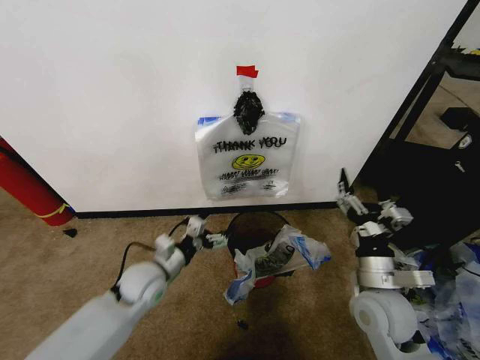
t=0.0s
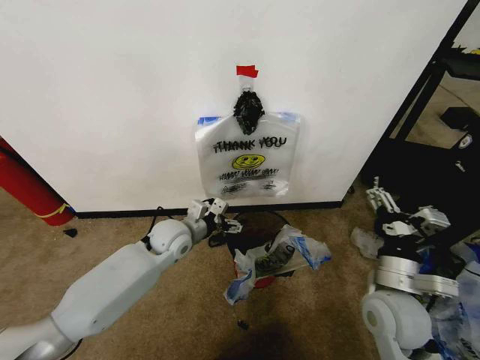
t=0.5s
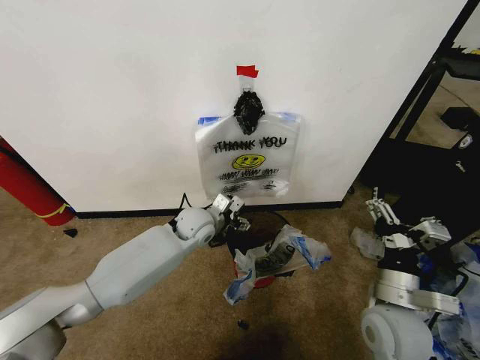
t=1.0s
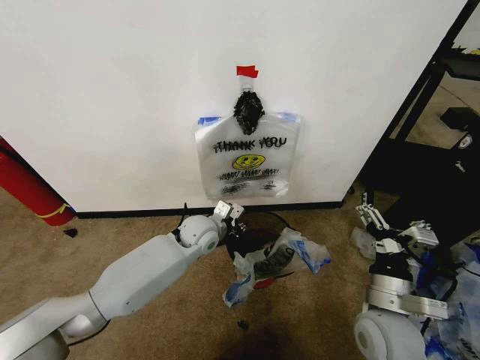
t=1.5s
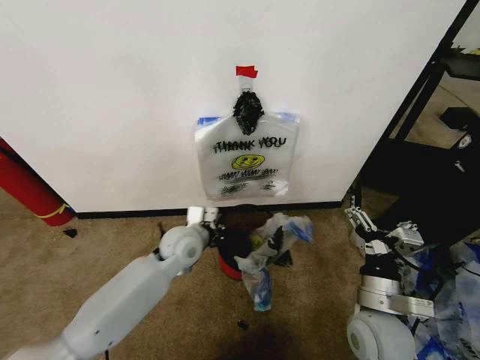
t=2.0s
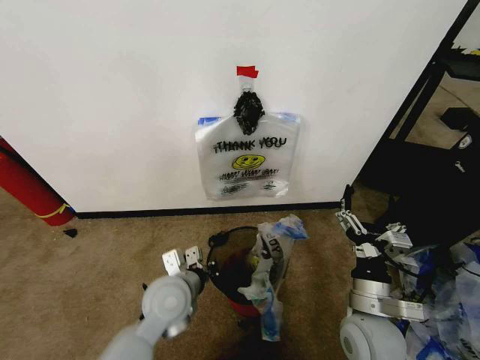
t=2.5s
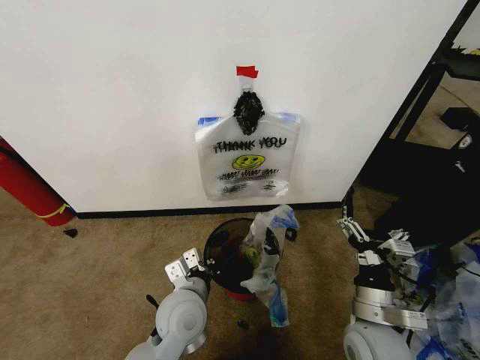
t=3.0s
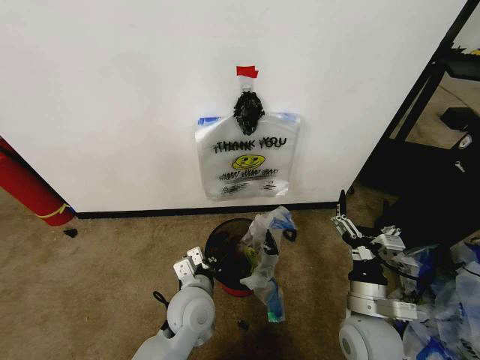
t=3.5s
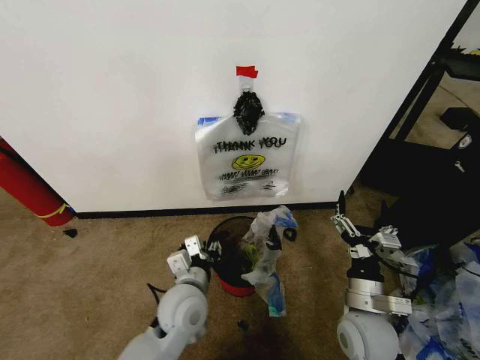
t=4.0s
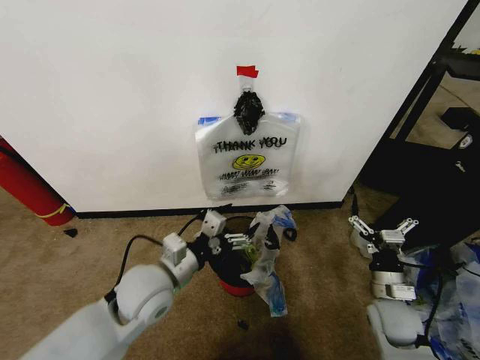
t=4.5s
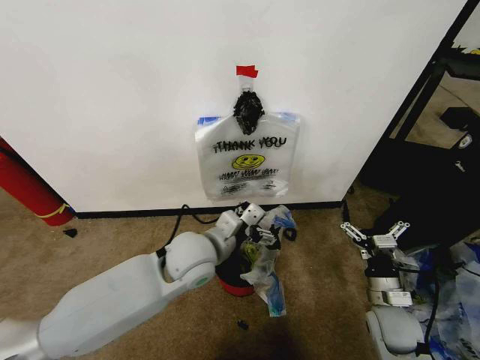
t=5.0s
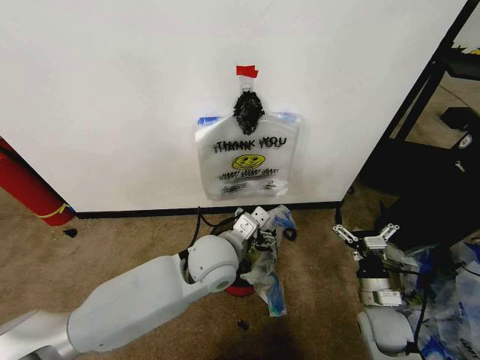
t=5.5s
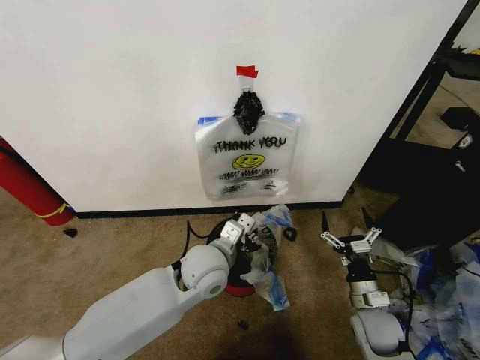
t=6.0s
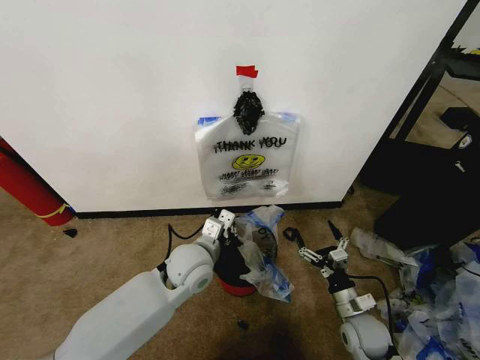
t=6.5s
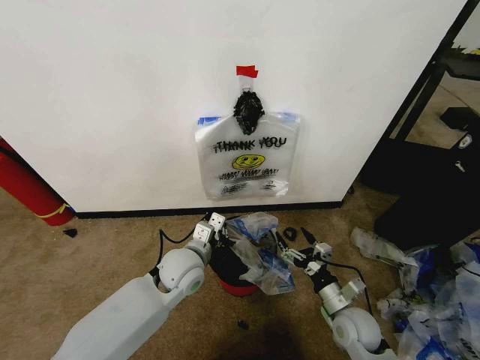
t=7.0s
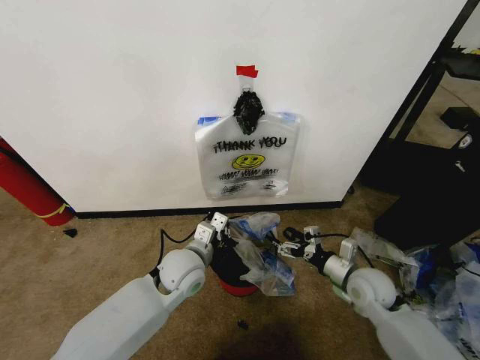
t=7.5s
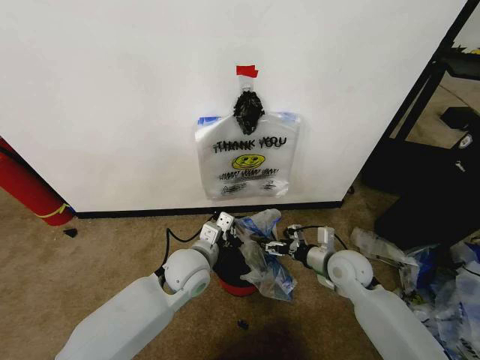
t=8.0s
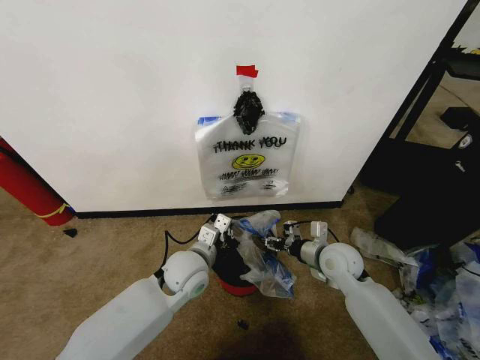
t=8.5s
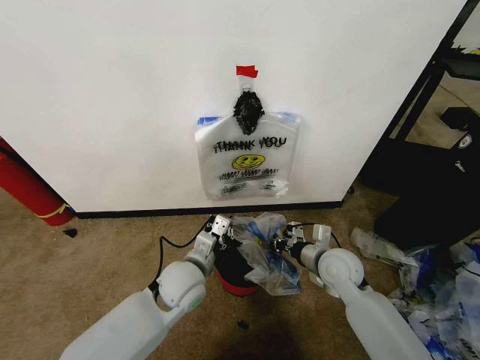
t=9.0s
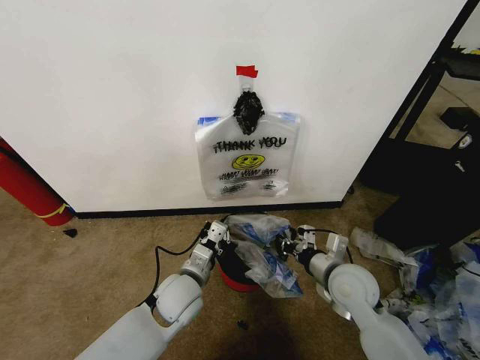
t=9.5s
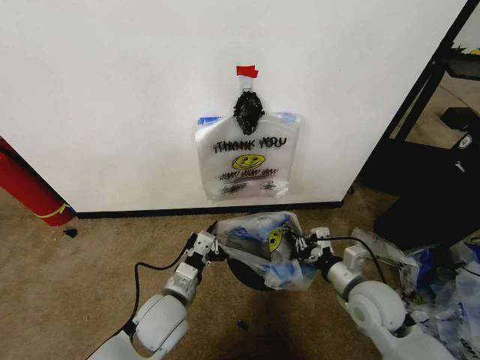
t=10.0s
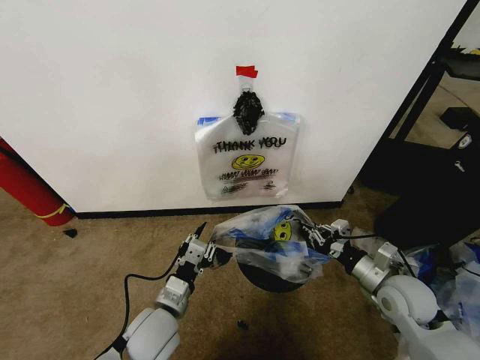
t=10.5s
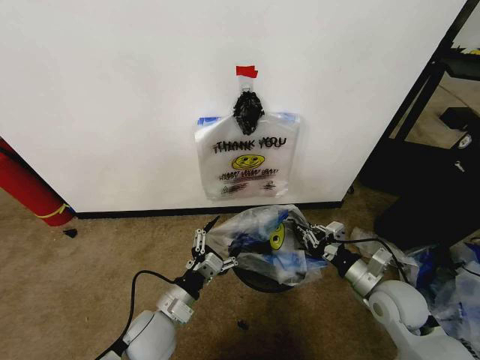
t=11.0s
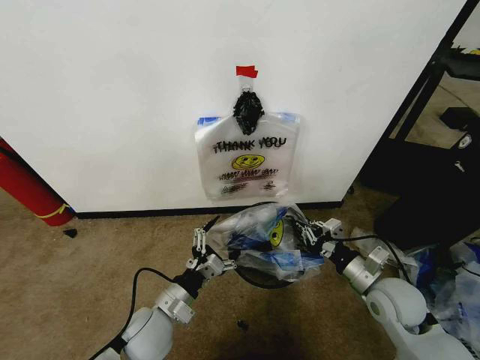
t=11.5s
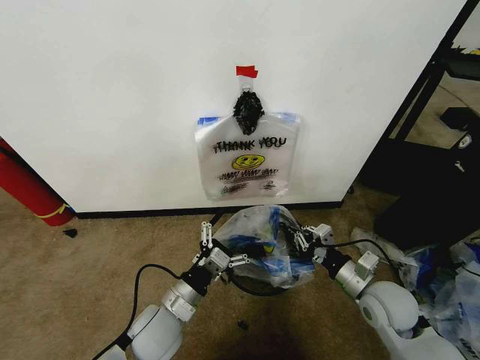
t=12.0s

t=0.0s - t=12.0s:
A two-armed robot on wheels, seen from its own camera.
Task of the whole recording: Pick up the garbage bag from the wall and place it over the trash bin.
t=0.0s - t=2.0s: The left gripper goes approximately 15 cm forward, to the right and upward, and closes its fingers.
t=2.0s - t=4.0s: The left gripper heads backward, covering about 15 cm, and opens up.
t=4.0s - t=6.0s: The right gripper moves downward and to the right, roughly 10 cm. The left gripper moves forward and upward, roughly 10 cm, goes to the right and returns, some 5 cm each way, and opens, then closes again.
t=6.0s - t=8.0s: The right gripper travels forward and upward by approximately 15 cm. The left gripper ends up some 5 cm from where it was, and closes its fingers.
t=8.0s - t=10.0s: The grippers both shift backward by roughly 10 cm. The right gripper closes.
t=10.0s - t=12.0s: The left gripper opens up.

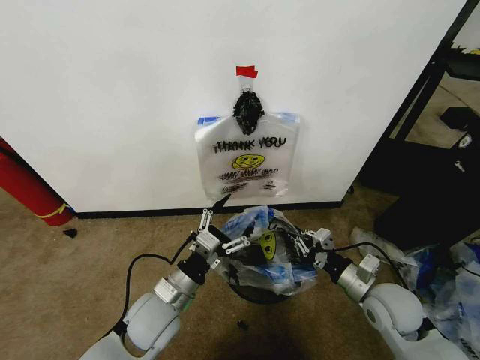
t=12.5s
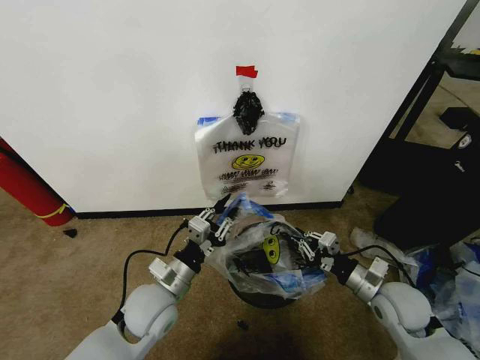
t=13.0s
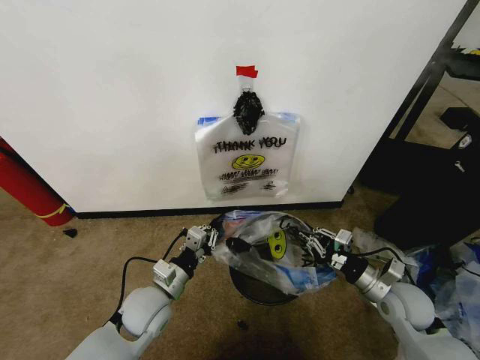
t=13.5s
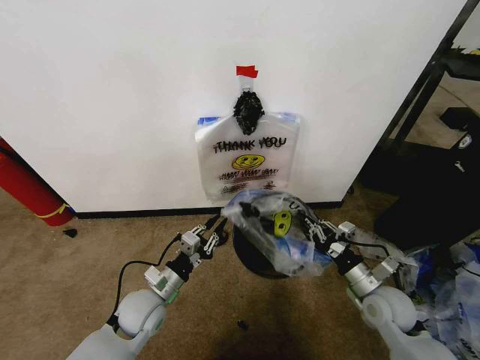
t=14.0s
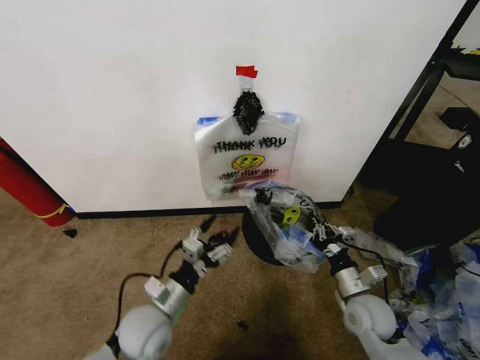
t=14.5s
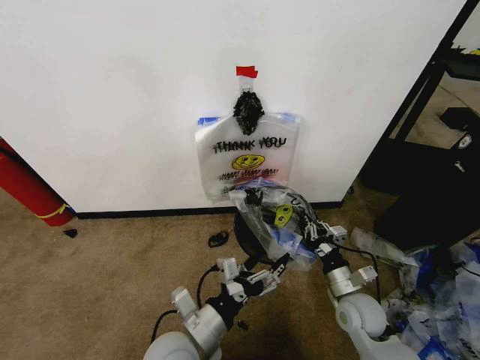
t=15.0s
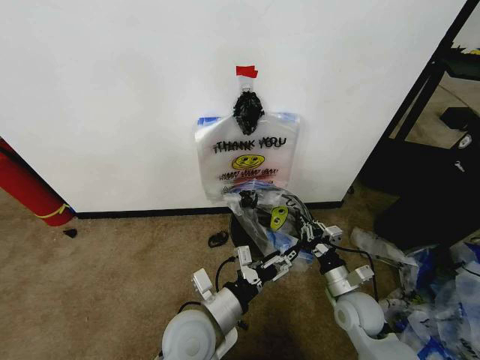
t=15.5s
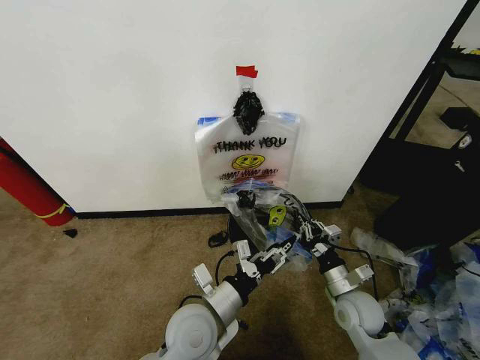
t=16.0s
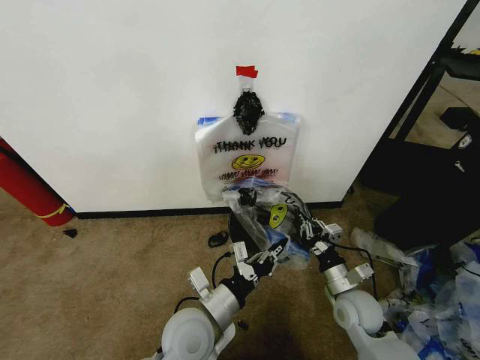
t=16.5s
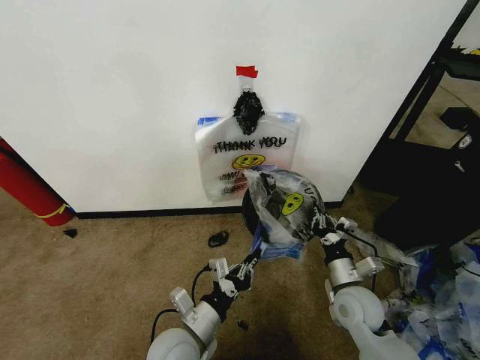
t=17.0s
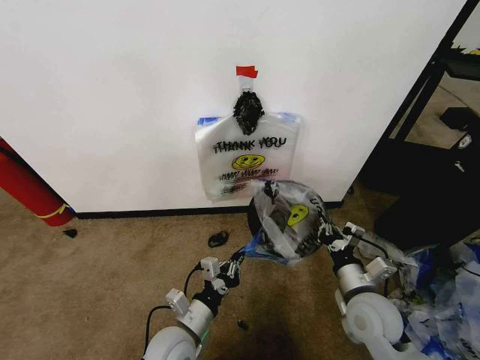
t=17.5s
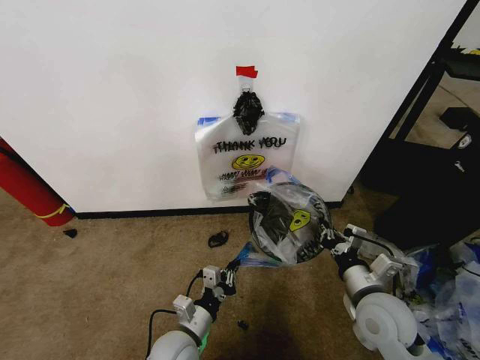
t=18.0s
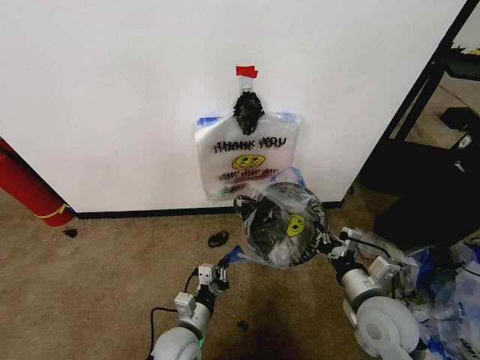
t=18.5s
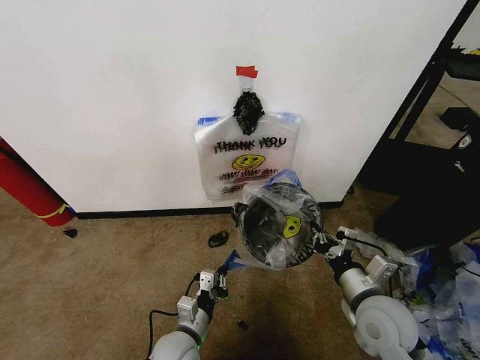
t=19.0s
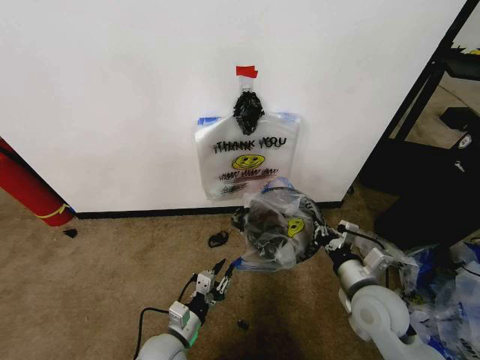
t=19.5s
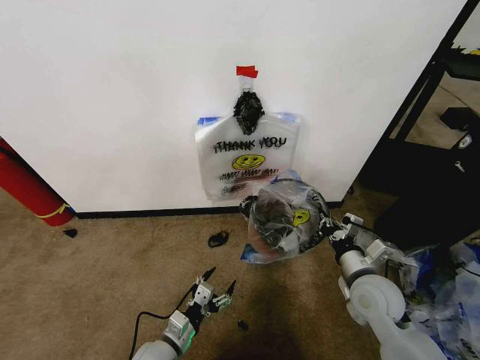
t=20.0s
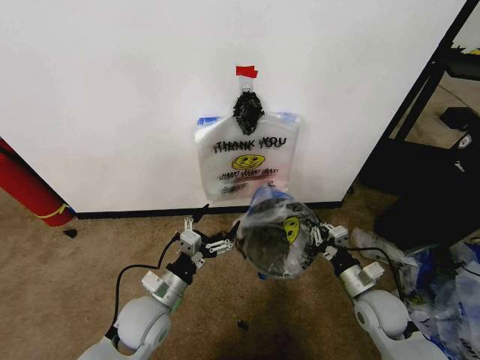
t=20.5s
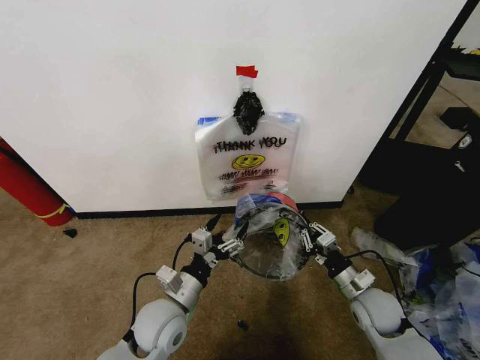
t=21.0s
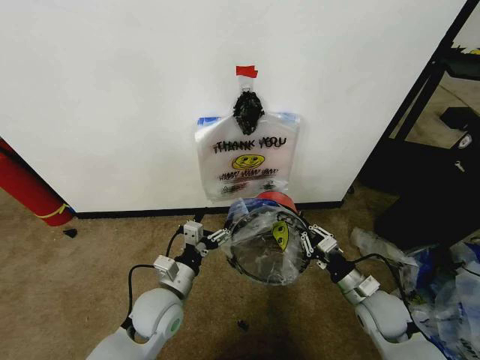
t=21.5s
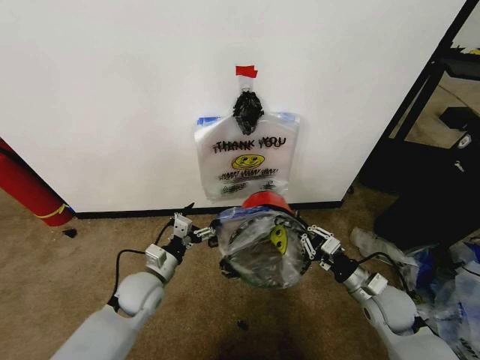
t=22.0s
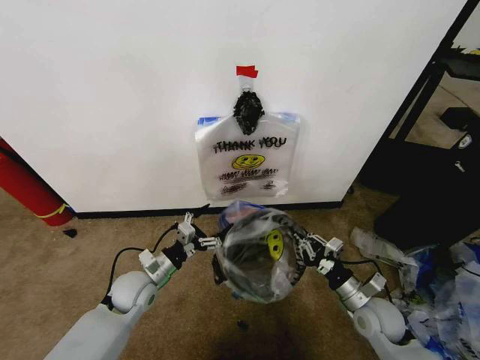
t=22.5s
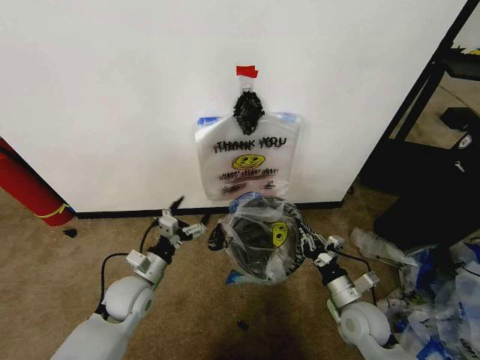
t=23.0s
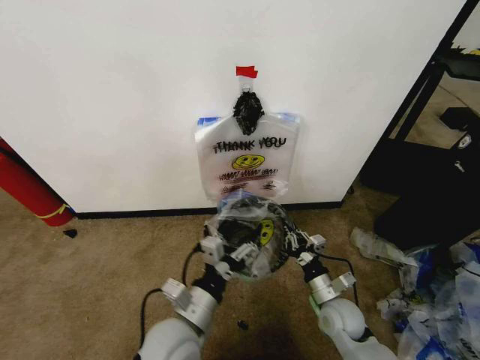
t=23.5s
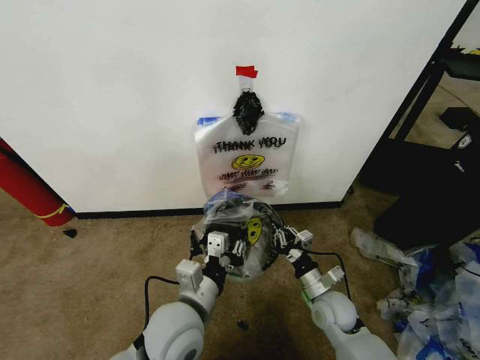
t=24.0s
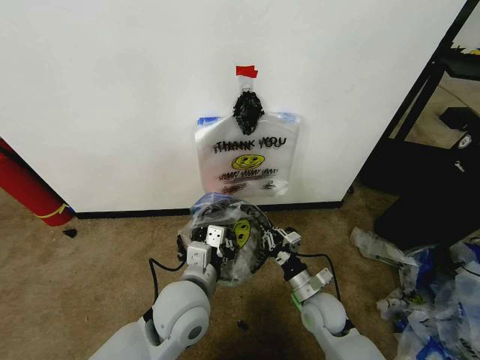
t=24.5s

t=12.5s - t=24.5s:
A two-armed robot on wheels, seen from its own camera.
Task of the whole recording: Pick up the garbage bag from the wall and place it over the trash bin.
t=12.5s - t=14.5s: The right gripper heads downward, covering approximately 5 cm; the left gripper closes, then reopens.
t=14.5s - t=16.5s: The left gripper heads to the right, covering approximately 10 cm, and closes.
t=16.5s - t=18.5s: The right gripper is displaced upward by some 10 cm, while the left gripper goes some 10 cm downward.
t=18.5s - t=20.5s: The right gripper heads downward, covering approximately 10 cm, while the left gripper shifts some 10 cm upward and to the left, and opens its fingers.
t=20.5s - t=22.5s: The left gripper shifts some 10 cm forward and to the left.
t=22.5s - t=24.5s: The left gripper moves to the right, upward and backward, some 20 cm, and closes; the right gripper shifts some 10 cm to the left.

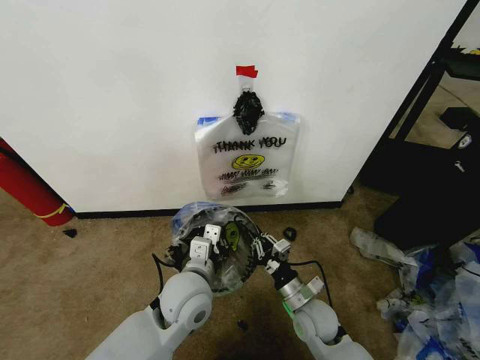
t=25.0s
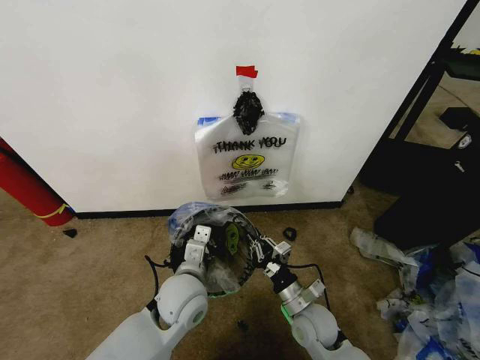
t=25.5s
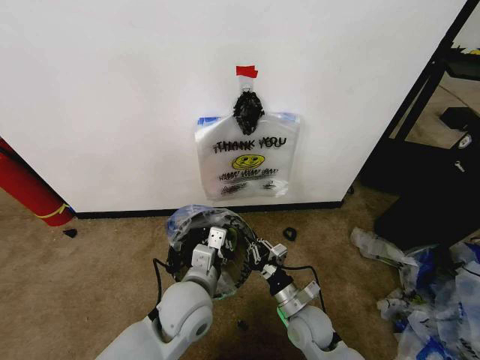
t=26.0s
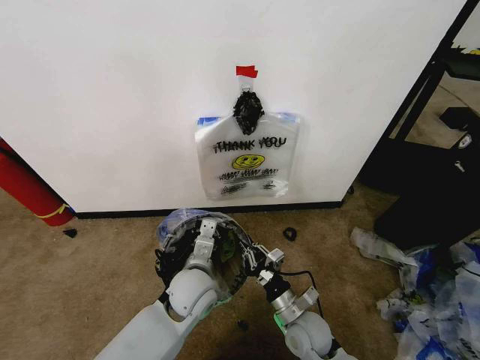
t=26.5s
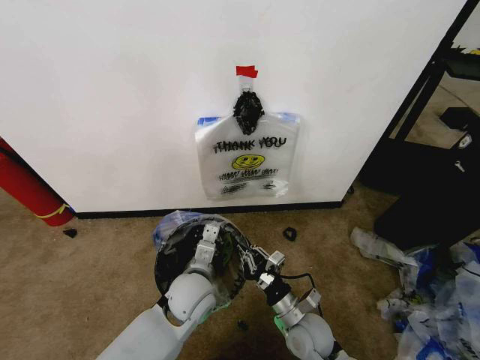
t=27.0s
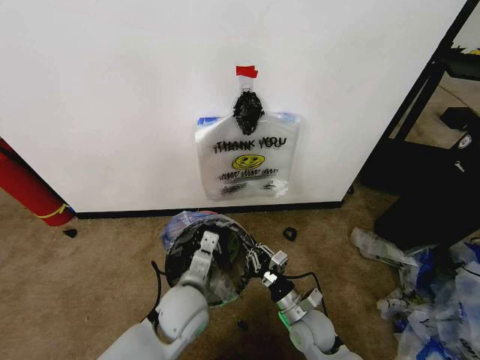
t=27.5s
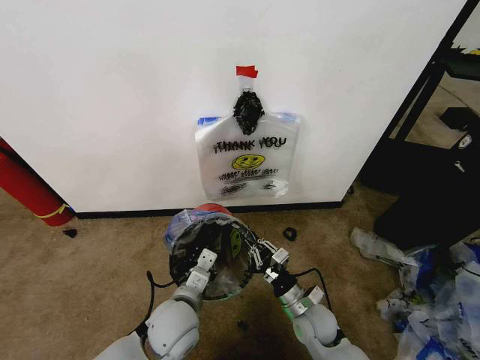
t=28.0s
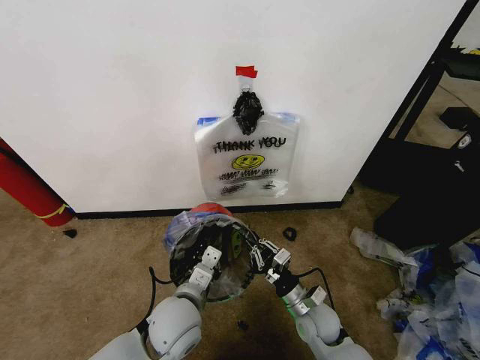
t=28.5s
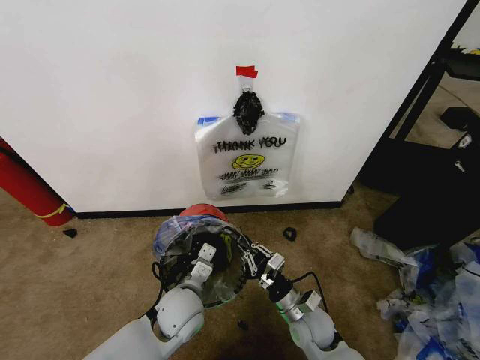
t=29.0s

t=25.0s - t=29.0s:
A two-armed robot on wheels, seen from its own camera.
Task of the whole recording: Pick up the garbage bag from the wall and place it over the trash bin.
t=25.0s - t=27.0s: The left gripper moves downward, some 5 cm.
